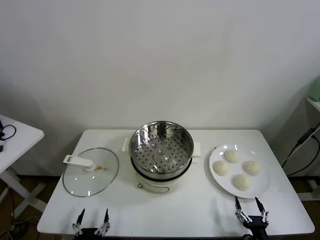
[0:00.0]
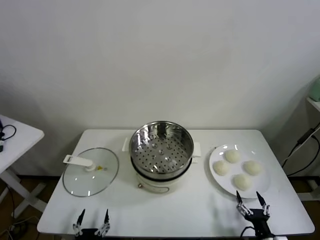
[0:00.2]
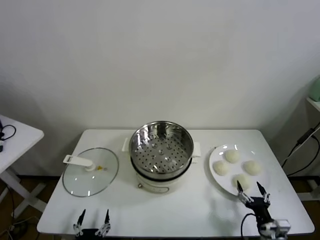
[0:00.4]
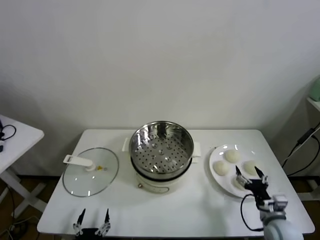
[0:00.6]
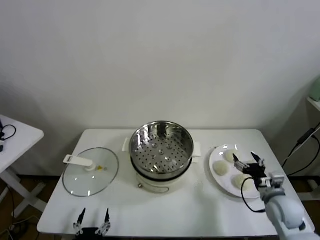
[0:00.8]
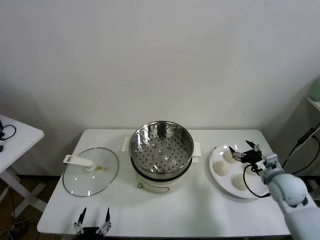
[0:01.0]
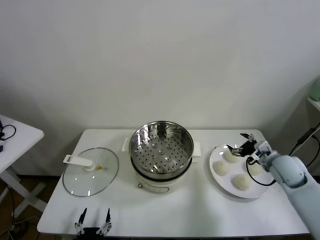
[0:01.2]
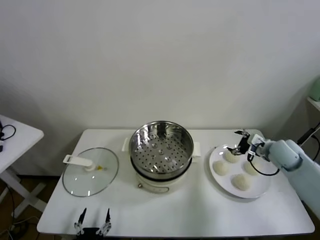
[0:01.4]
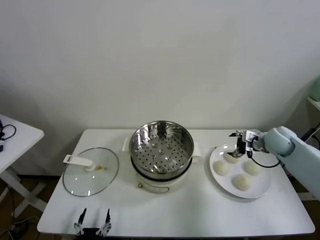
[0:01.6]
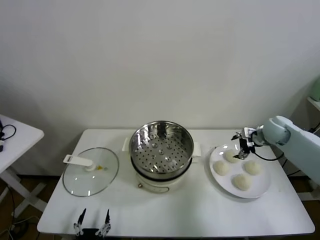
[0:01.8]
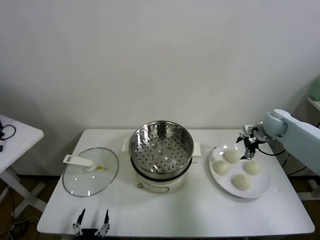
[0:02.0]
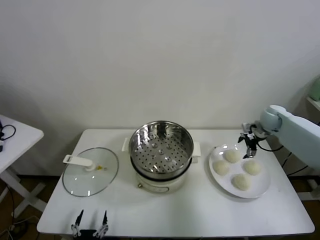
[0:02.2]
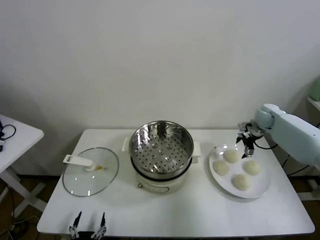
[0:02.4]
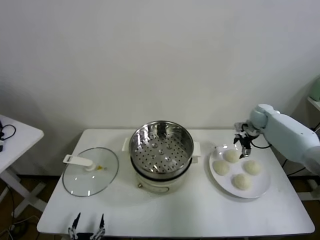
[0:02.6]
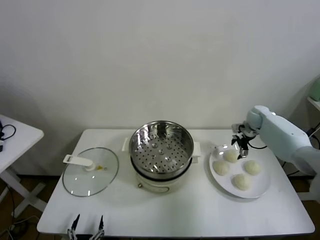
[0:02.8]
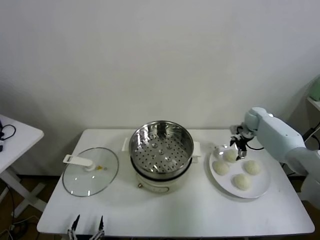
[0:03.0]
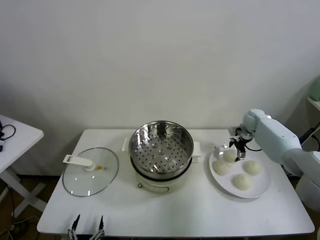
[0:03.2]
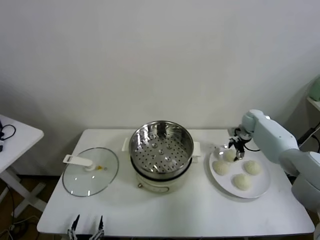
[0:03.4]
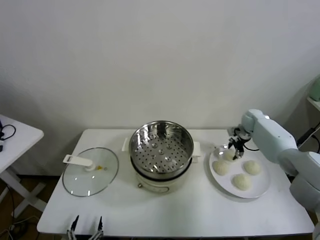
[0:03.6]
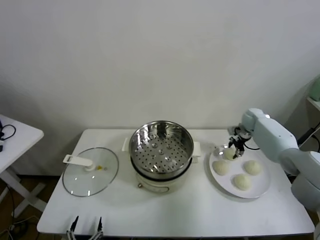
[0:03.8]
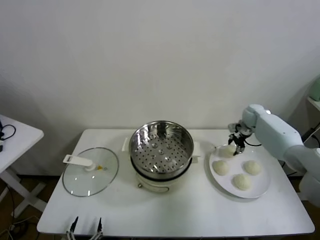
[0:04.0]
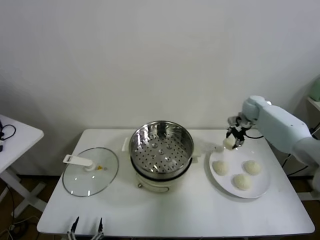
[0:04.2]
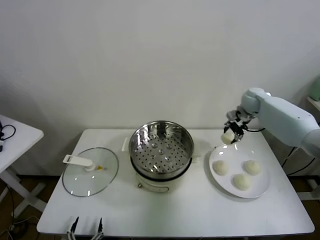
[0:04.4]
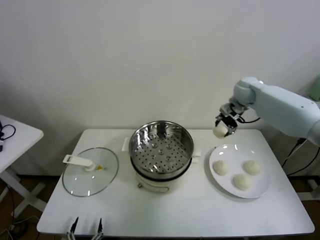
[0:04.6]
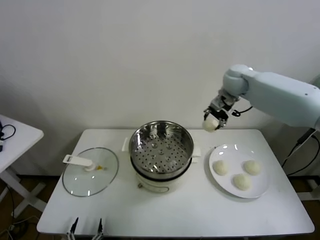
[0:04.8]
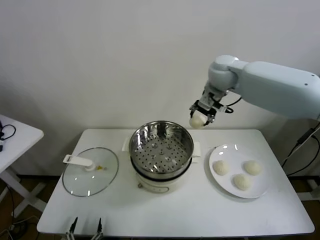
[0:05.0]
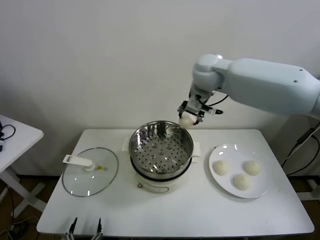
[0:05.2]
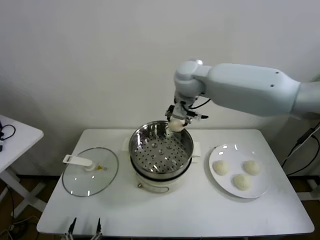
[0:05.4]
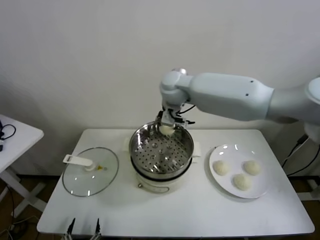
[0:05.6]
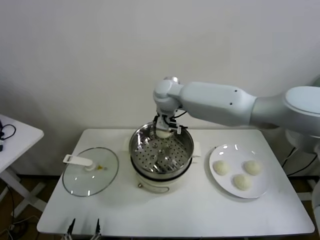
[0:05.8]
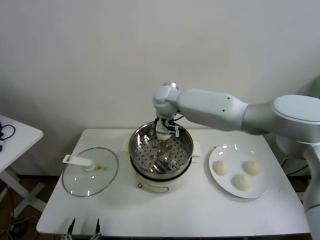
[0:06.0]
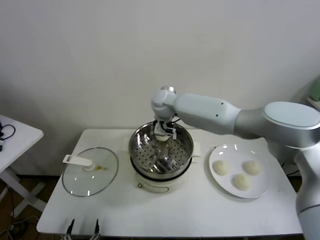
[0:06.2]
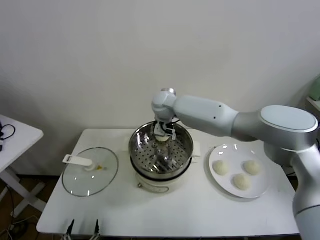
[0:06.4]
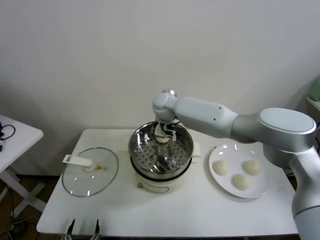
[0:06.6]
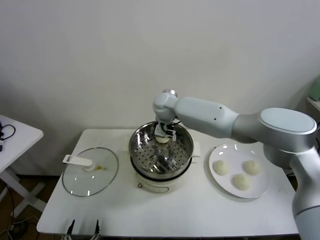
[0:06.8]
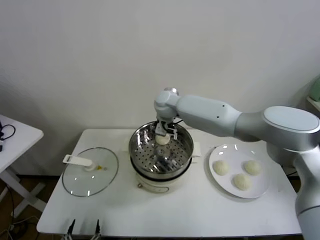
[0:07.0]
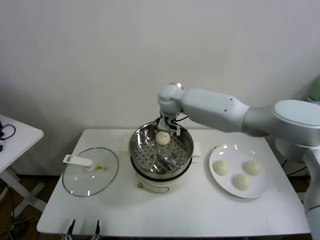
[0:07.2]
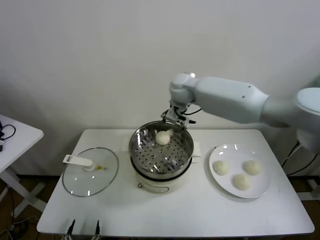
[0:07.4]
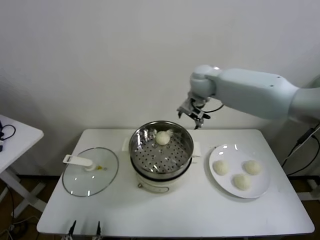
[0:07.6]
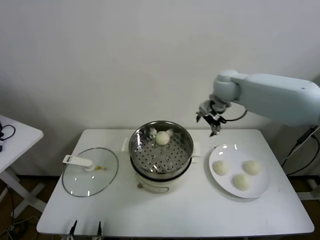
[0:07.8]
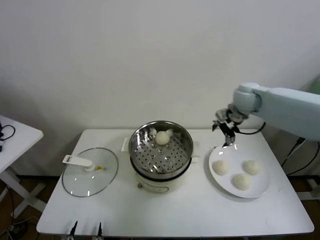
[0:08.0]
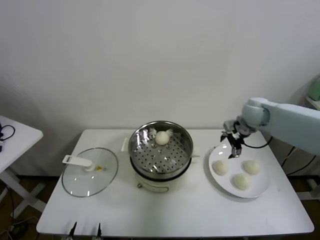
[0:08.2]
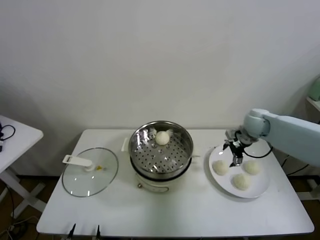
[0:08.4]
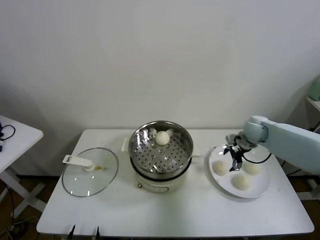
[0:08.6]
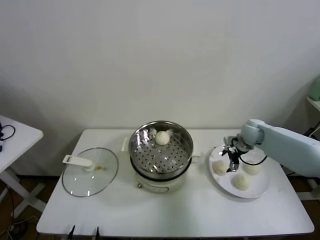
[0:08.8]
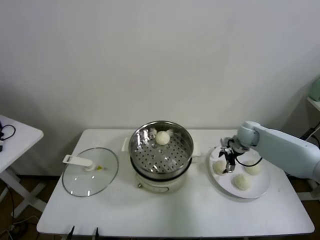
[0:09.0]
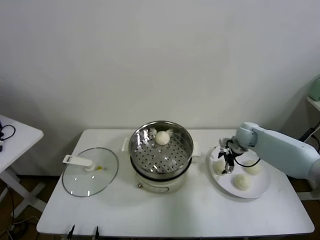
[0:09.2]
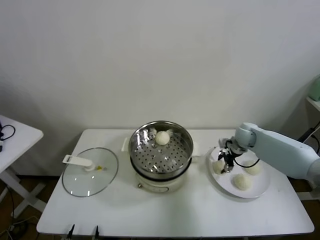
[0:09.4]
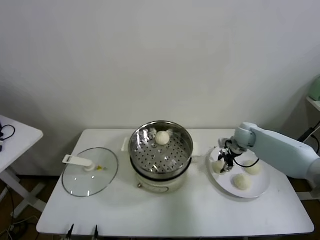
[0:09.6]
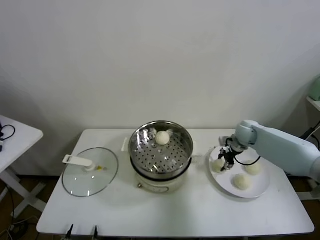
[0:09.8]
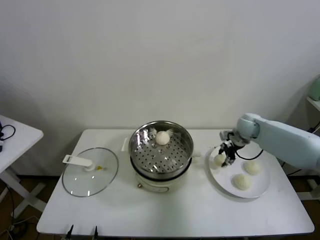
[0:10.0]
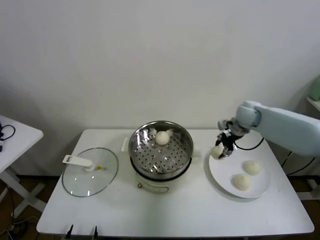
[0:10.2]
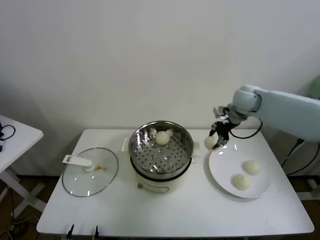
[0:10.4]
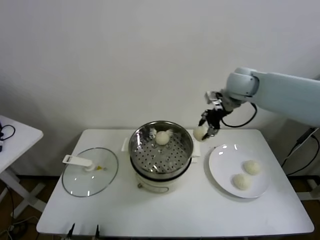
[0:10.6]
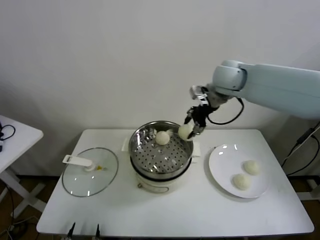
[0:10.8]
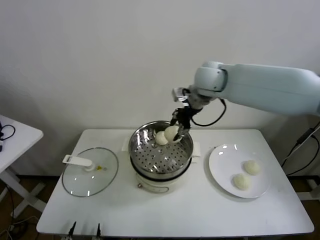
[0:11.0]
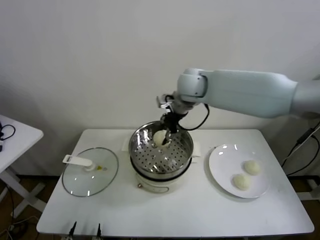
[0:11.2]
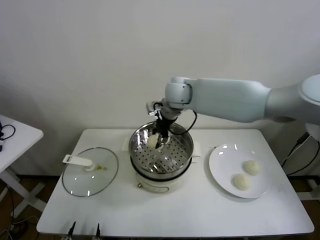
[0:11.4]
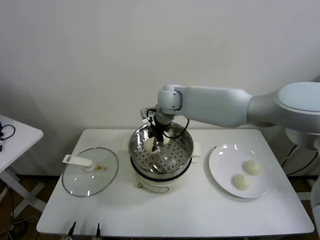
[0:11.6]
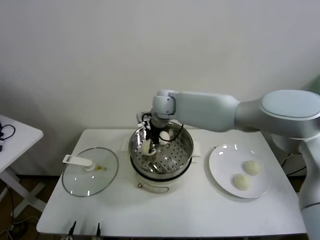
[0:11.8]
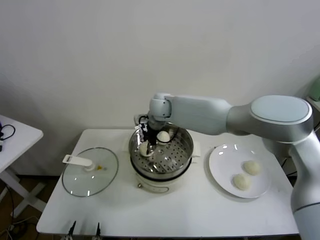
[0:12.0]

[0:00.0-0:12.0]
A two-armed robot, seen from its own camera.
Task of the whole recording: take steamed baozi put them in steamer.
Step, 0:00.0 to 0:03.6: Grasp the baozi in the plate with right gripper.
Step, 0:03.8 to 0:07.0: Place the baozi on the steamer with right gripper.
Step, 0:07.4 to 0:09.6: Grasp the baozi in the plate with right gripper.
0:01.6 to 0:03.0: The right gripper shifts some 15 cm forward.
0:03.0 to 0:04.4: The right gripper travels upward and to the left by roughly 15 cm, and closes.
0:04.4 to 0:06.0: The right gripper shifts about 35 cm to the left.
0:06.0 to 0:07.6: The right gripper travels to the right and upward by some 15 cm, and opens its fingers.
0:07.6 to 0:09.0: The right gripper moves downward and to the right, roughly 30 cm.
0:09.0 to 0:10.4: The right gripper moves upward, some 20 cm, and closes up.
0:10.4 to 0:12.0: The right gripper is displaced to the left by approximately 30 cm.

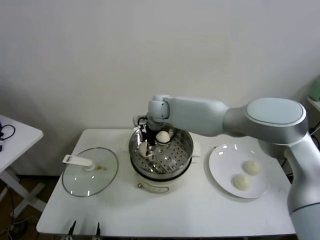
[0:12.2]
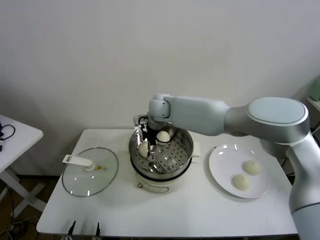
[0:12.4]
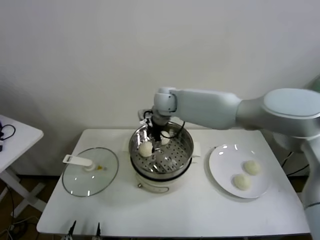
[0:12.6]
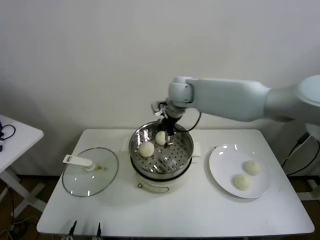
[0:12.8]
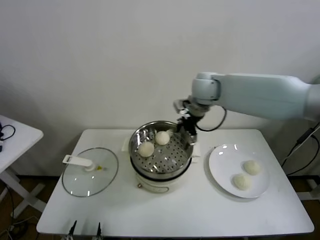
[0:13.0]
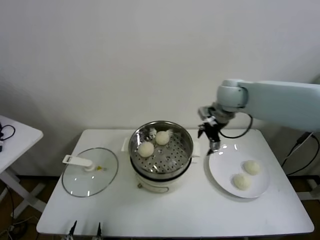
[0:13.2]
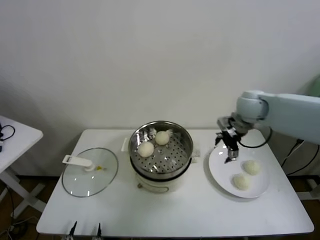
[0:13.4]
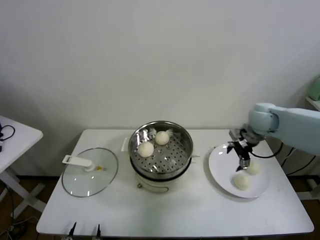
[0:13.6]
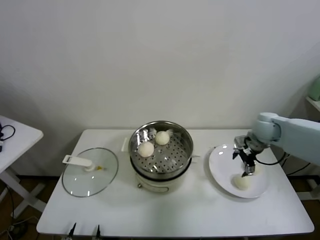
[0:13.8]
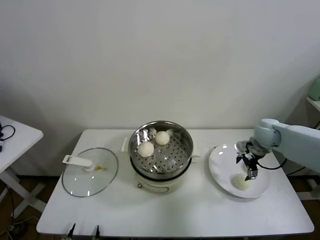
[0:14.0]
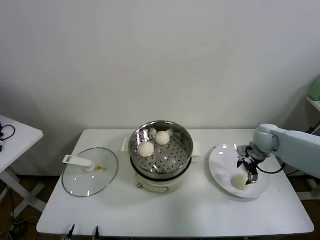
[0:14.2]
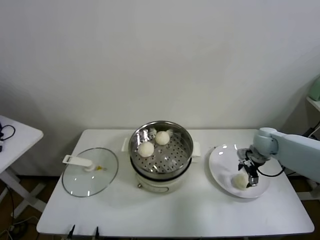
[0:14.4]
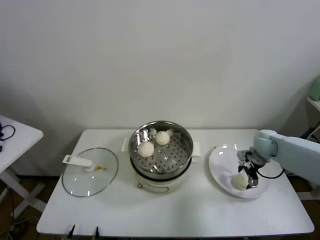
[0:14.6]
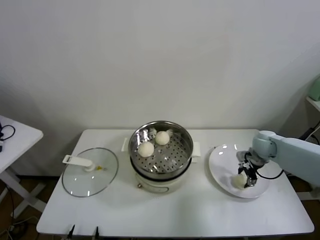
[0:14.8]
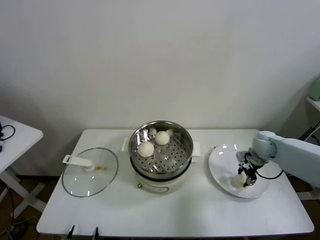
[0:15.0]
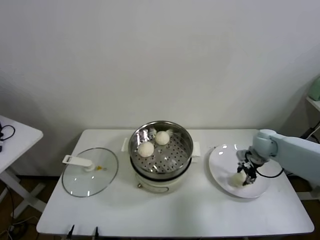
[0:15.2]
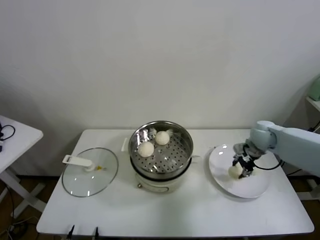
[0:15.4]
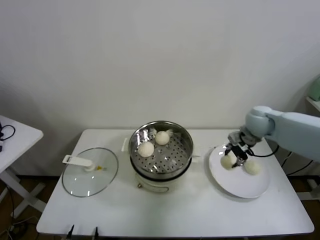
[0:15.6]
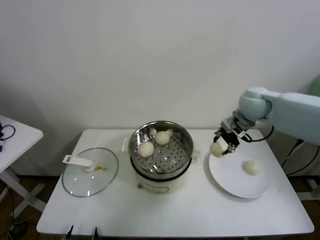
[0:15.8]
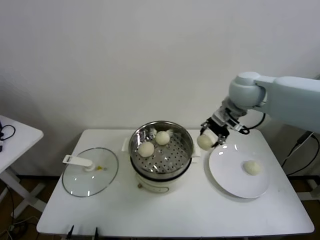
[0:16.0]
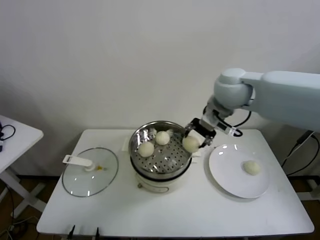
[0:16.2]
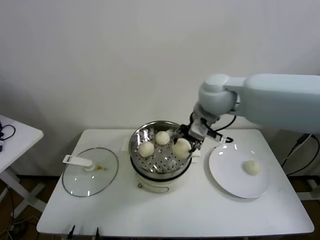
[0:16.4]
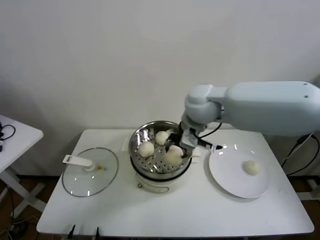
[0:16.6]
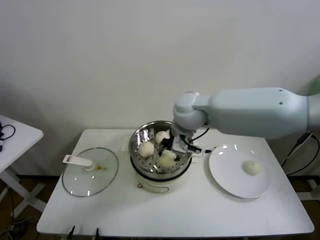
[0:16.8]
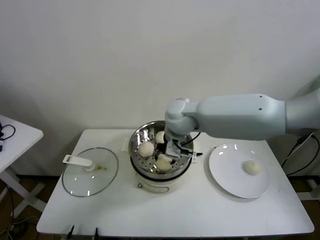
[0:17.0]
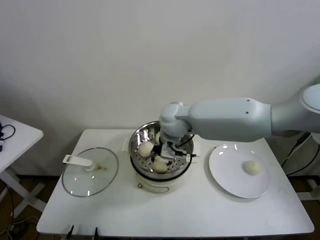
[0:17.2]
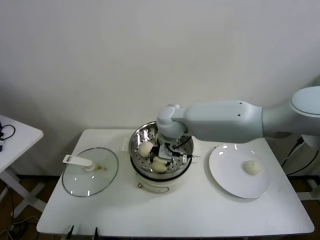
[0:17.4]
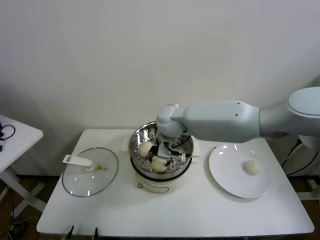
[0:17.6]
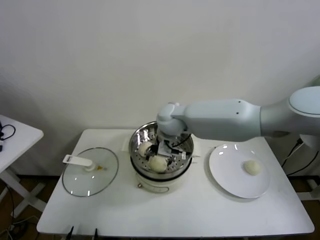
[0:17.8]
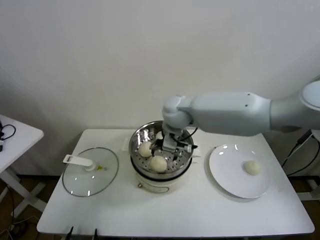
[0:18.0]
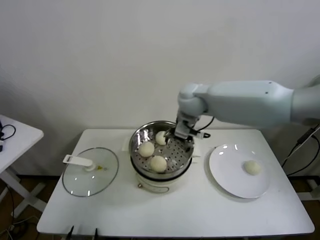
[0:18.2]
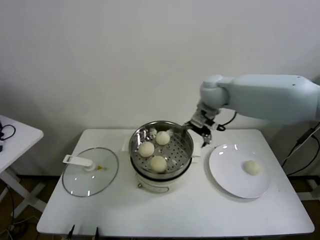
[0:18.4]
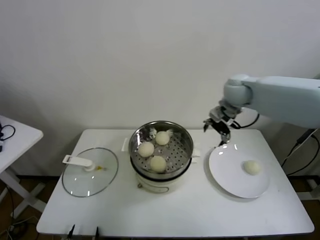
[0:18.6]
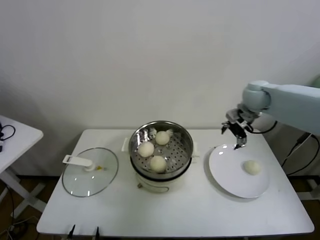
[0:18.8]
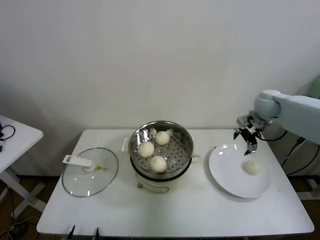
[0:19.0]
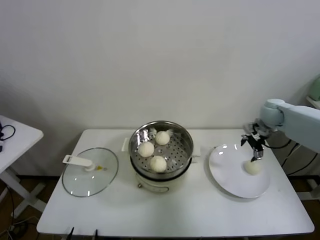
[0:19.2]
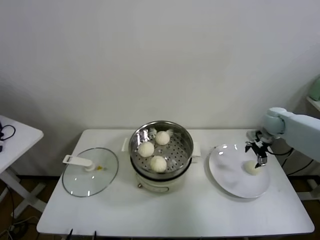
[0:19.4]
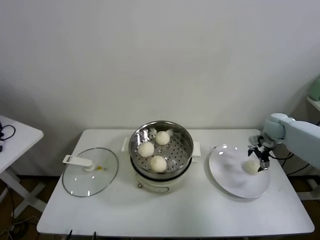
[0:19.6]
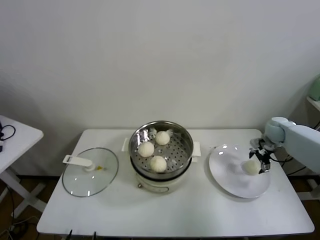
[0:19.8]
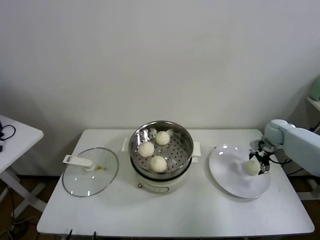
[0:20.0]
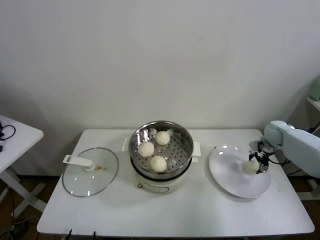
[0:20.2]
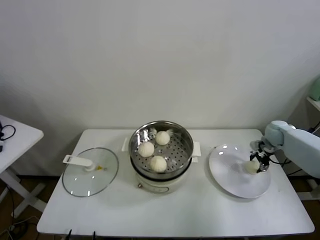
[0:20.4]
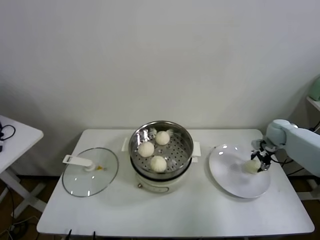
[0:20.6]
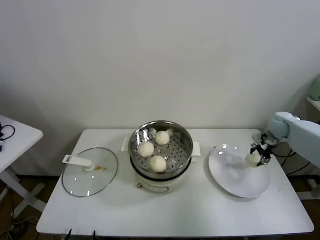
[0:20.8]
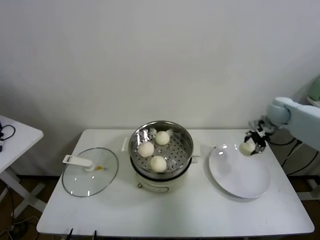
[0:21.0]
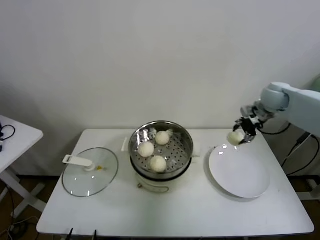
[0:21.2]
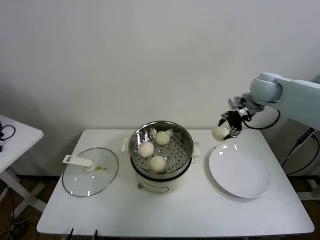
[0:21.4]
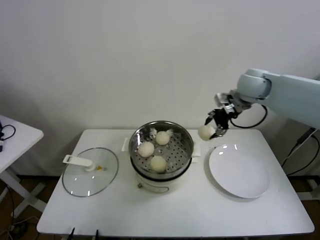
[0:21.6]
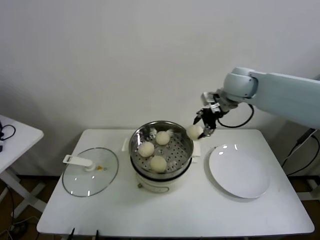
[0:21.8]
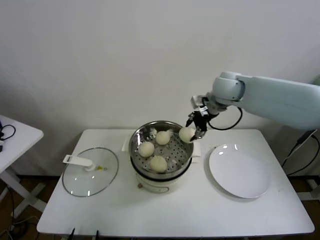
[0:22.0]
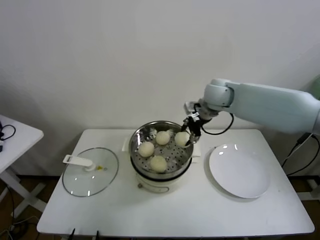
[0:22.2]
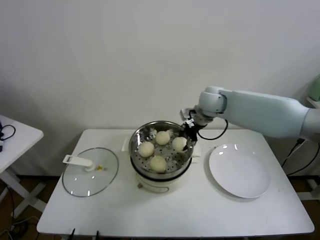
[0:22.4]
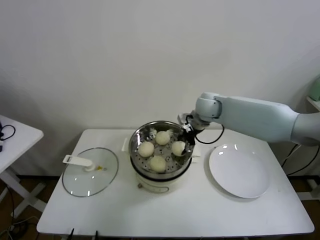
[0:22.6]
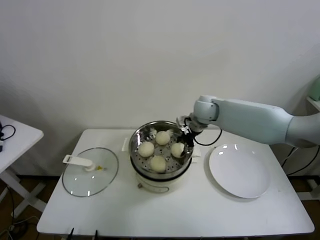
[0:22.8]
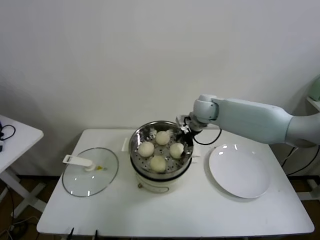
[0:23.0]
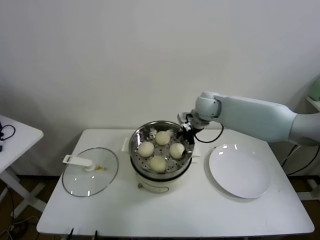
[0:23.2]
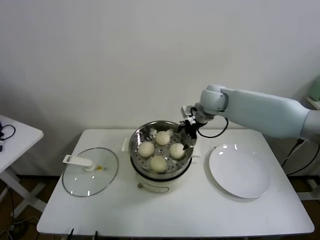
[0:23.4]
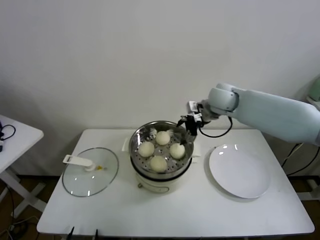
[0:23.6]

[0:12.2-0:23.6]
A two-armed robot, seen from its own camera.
Task of the whole recording: take steamed baozi put them in steamer.
Step, 0:12.8 to 0:14.8: Grasp the baozi in the plate with right gripper.
Step, 0:15.0 to 0:17.8: Place the baozi on the steamer with right gripper.
Step, 0:18.0 to 0:20.2: Grasp the baozi in the plate with right gripper.
Step, 0:20.4 to 0:23.2: Place the baozi on the steamer with right gripper.
0:12.2 to 0:13.6: The right gripper travels to the right by about 35 cm, and opens.
0:13.6 to 0:15.0: The right gripper moves downward and to the right, some 15 cm, and closes up.
0:15.0 to 0:16.4: The right gripper goes roughly 35 cm upward and to the left.
0:16.4 to 0:17.8: The right gripper goes roughly 15 cm downward and to the left, and opens.
0:17.8 to 0:19.4: The right gripper goes about 40 cm to the right.
0:19.4 to 0:20.8: The right gripper closes its fingers.
0:20.8 to 0:22.2: The right gripper is displaced to the left and upward by some 30 cm.
0:22.2 to 0:23.6: The right gripper opens.
